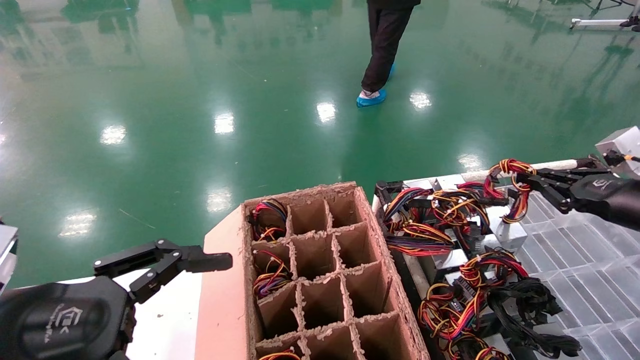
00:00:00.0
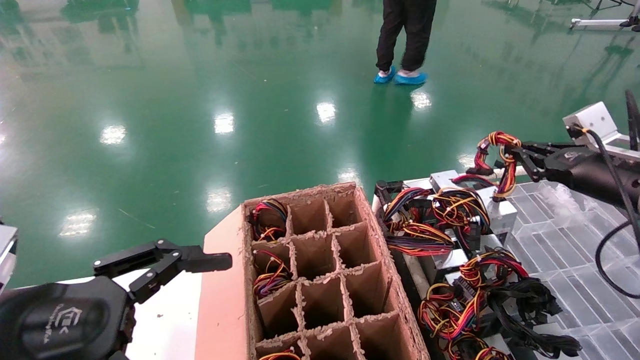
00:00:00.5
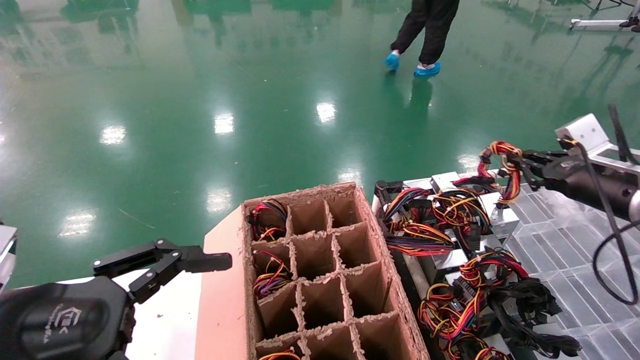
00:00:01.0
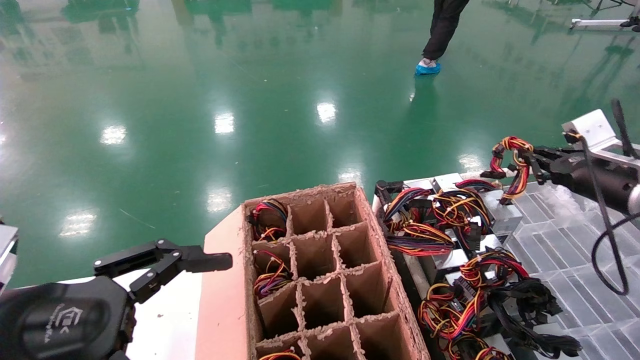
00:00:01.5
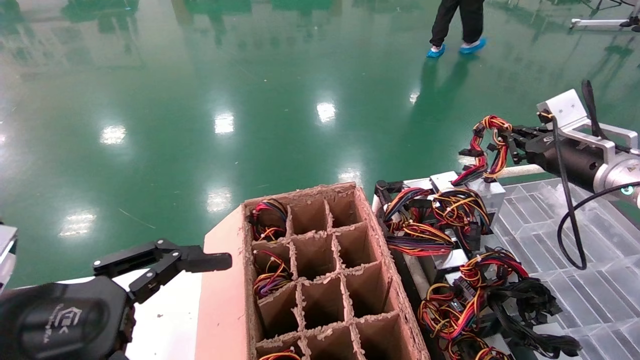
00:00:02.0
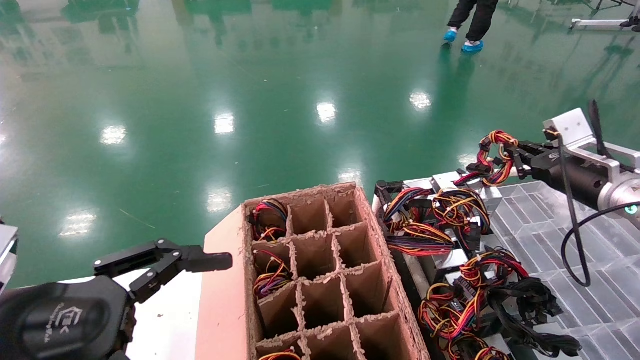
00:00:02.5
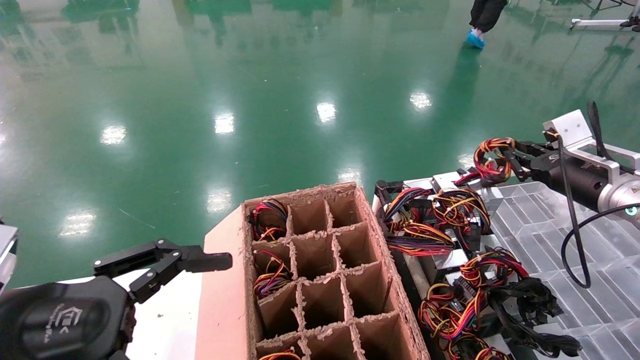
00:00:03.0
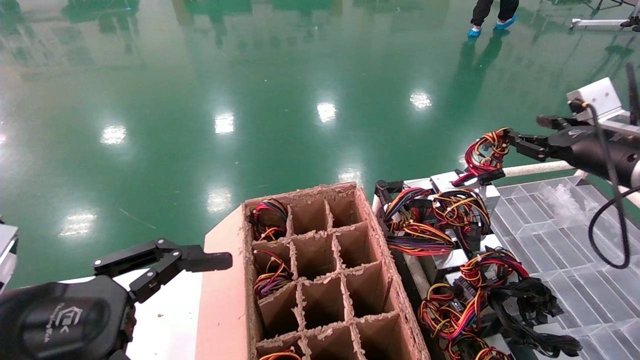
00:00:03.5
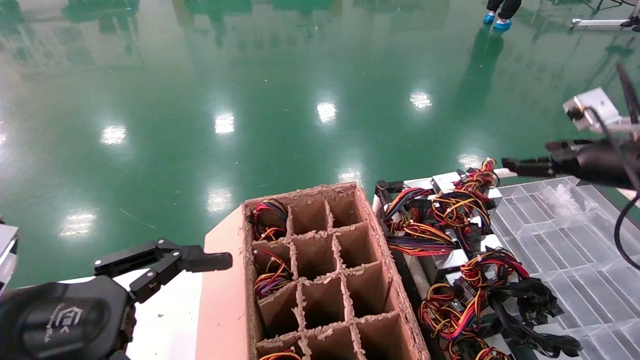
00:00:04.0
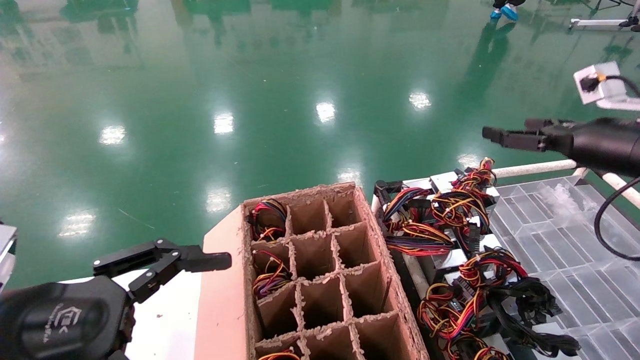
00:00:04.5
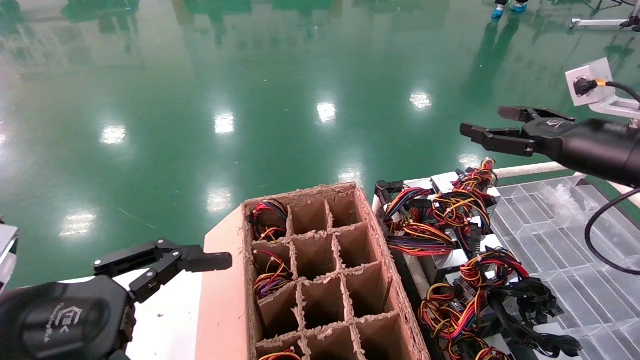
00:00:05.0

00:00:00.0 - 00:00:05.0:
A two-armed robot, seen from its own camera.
Step, 00:00:00.0 - 00:00:03.0: Place the power supply on the operating table.
00:00:00.0 - 00:00:02.5: The right gripper heads forward, covering approximately 10 cm.
00:00:02.5 - 00:00:05.0: The right gripper moves backward and upward, roughly 10 cm, and opens its fingers.

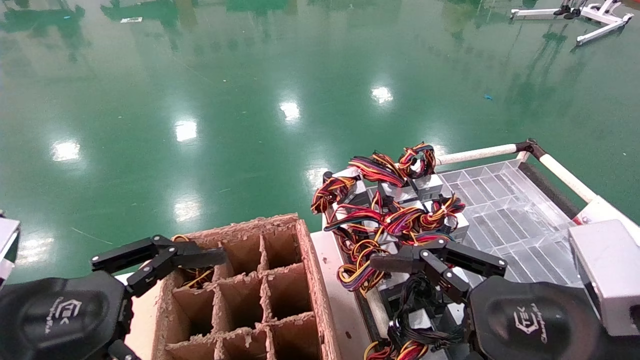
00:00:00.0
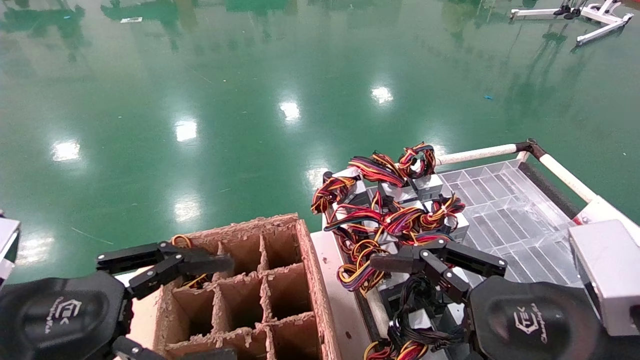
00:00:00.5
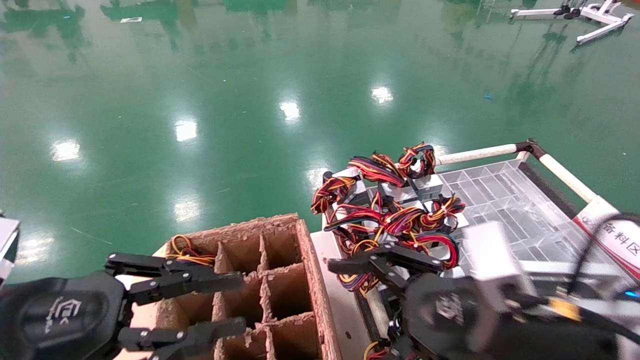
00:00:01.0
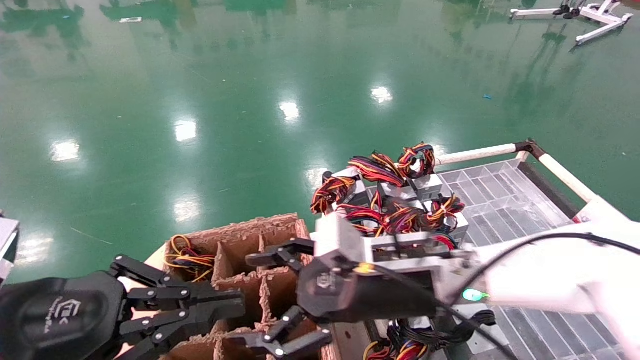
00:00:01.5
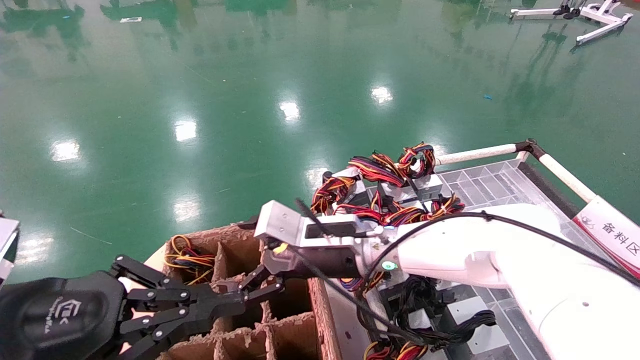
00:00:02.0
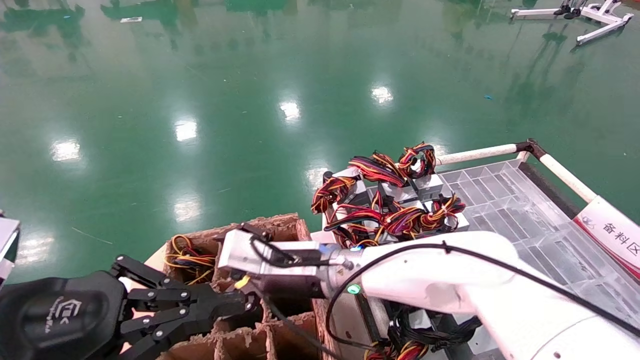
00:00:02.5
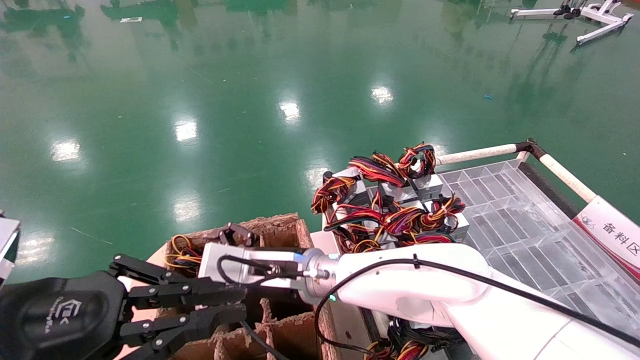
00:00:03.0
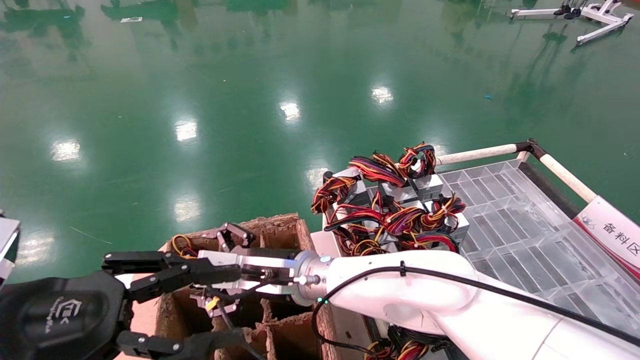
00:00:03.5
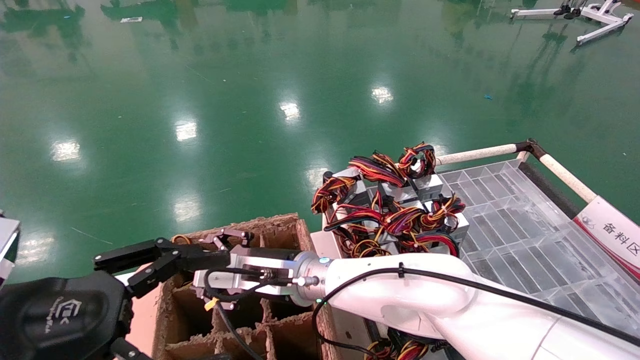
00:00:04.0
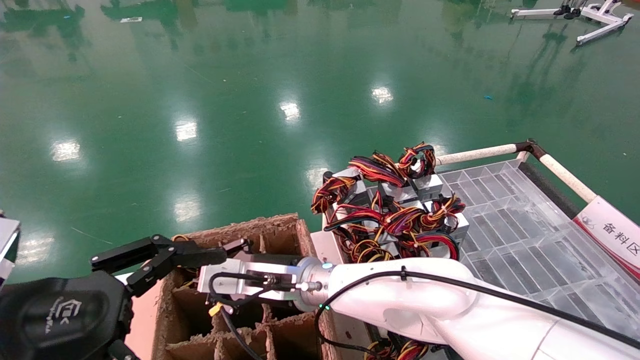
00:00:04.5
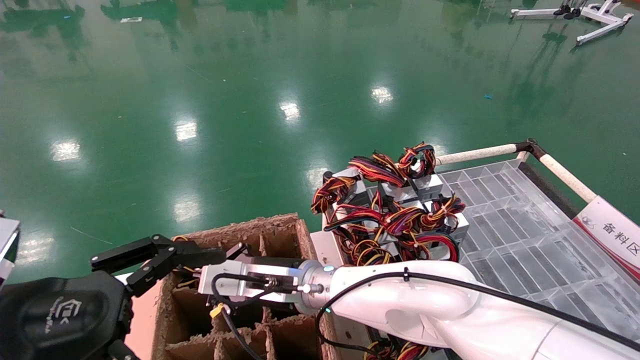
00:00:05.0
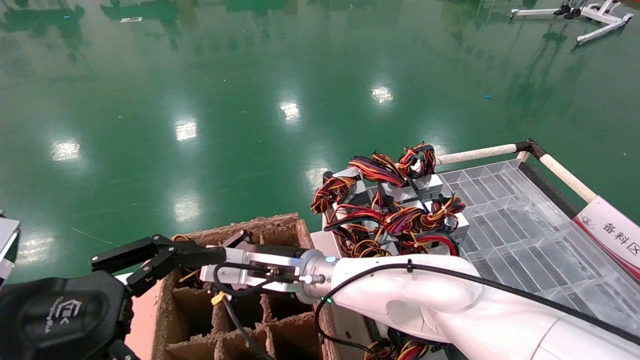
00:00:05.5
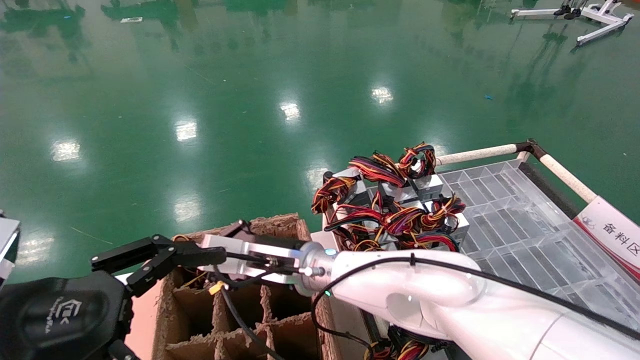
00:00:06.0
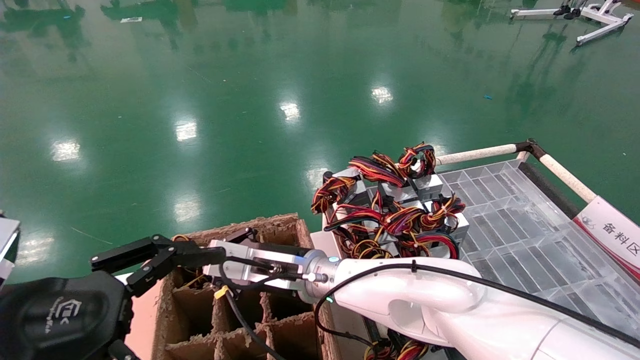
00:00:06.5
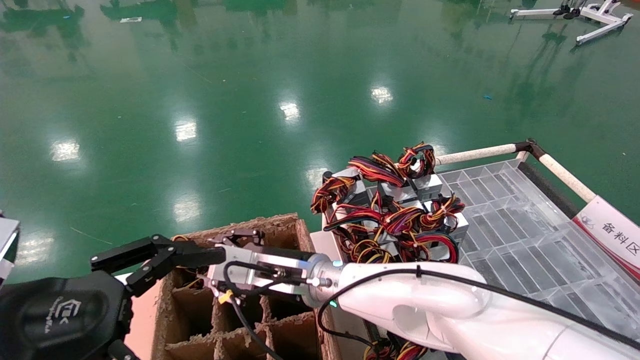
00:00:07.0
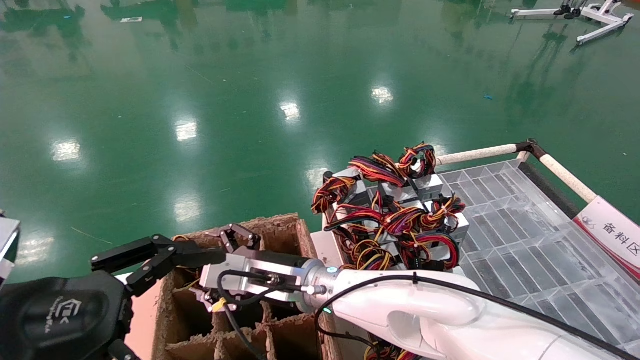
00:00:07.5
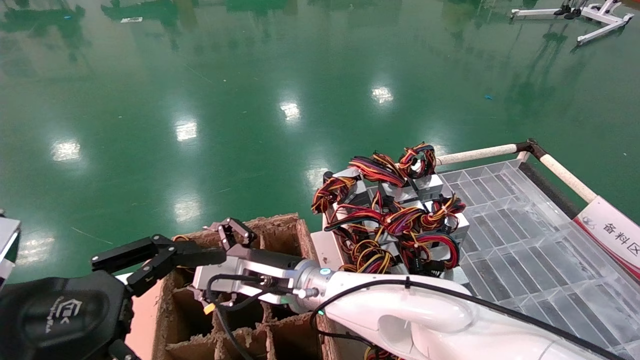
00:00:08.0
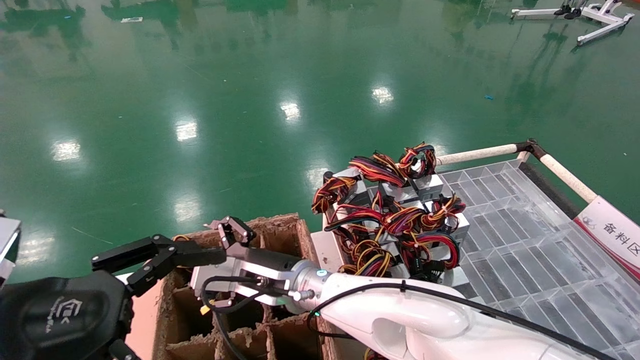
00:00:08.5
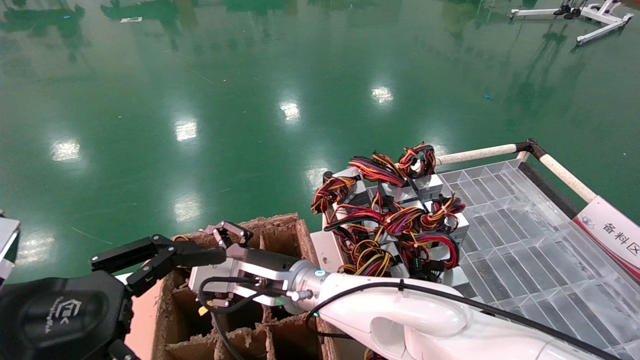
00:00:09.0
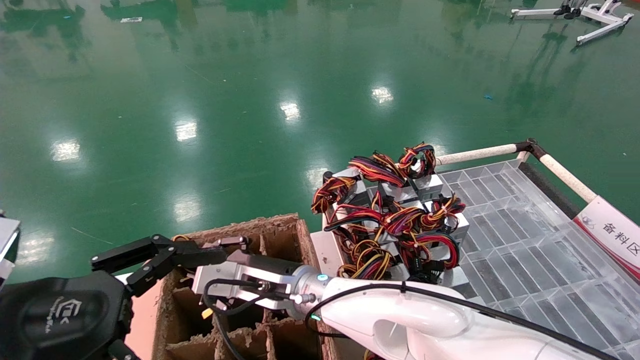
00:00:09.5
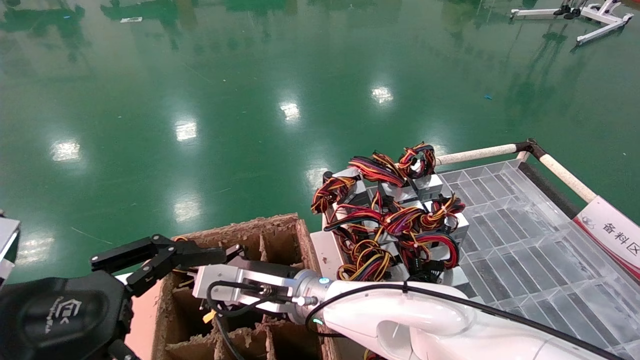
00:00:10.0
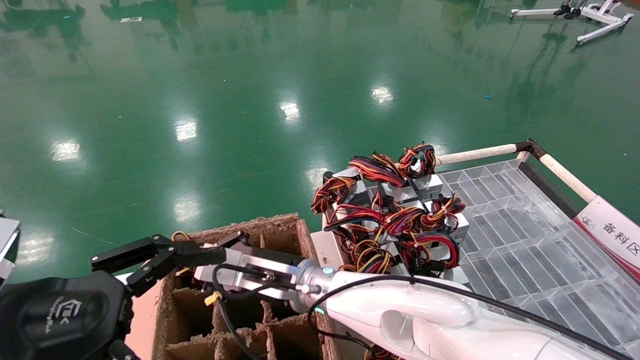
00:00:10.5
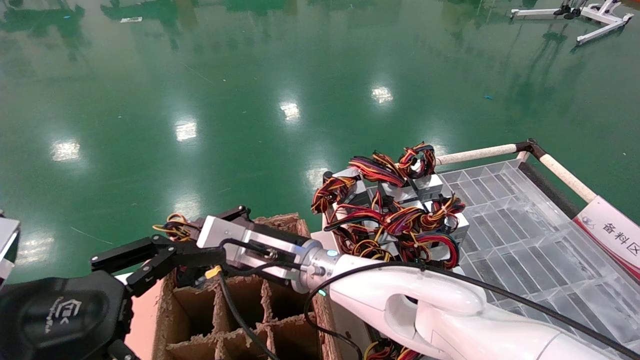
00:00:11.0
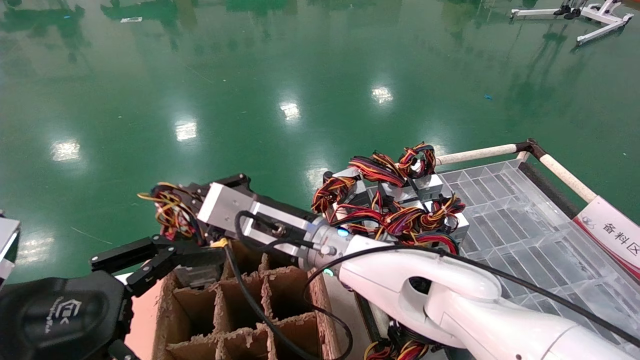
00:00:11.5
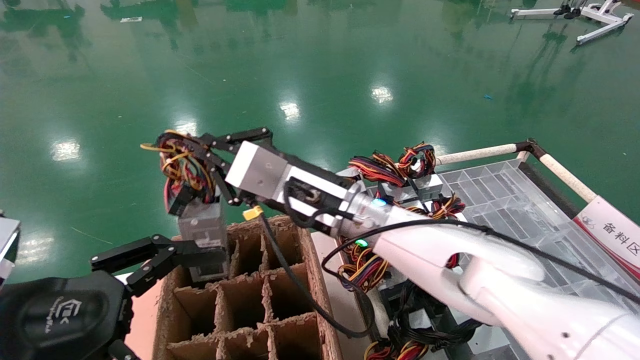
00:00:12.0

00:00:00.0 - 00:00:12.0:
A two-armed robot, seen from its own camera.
Step, 00:00:01.0 - 00:00:10.0: Grab and lift the power supply from the large box.
00:00:00.0 - 00:00:02.0: The left gripper closes up. Meanwhile the right gripper shifts roughly 30 cm forward and to the left.
00:00:02.0 - 00:00:04.0: The right gripper is displaced to the left by roughly 10 cm, while the left gripper opens.
00:00:04.0 - 00:00:06.0: The right gripper closes up.
00:00:06.0 - 00:00:08.0: The right gripper opens its fingers.
00:00:08.0 - 00:00:10.0: The right gripper closes.
00:00:10.0 - 00:00:12.0: The right gripper travels upward and to the right by about 15 cm.

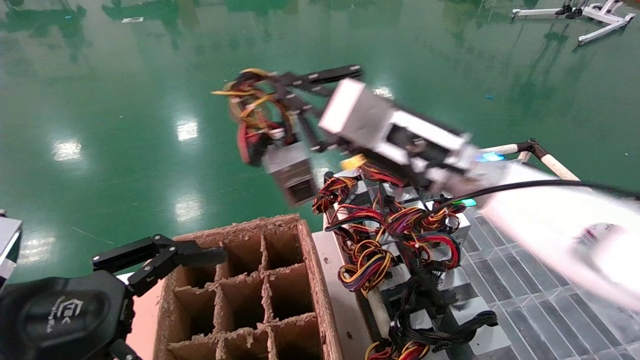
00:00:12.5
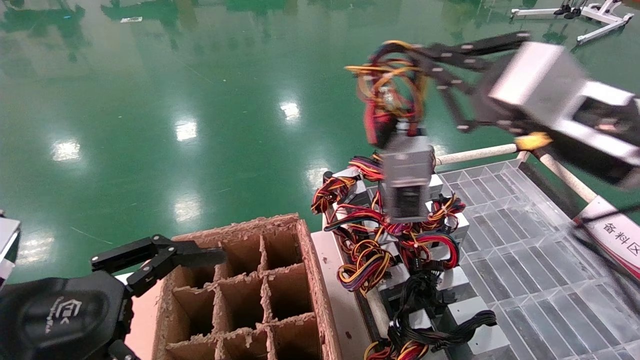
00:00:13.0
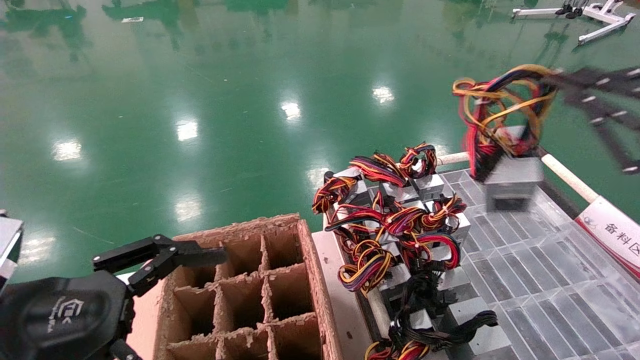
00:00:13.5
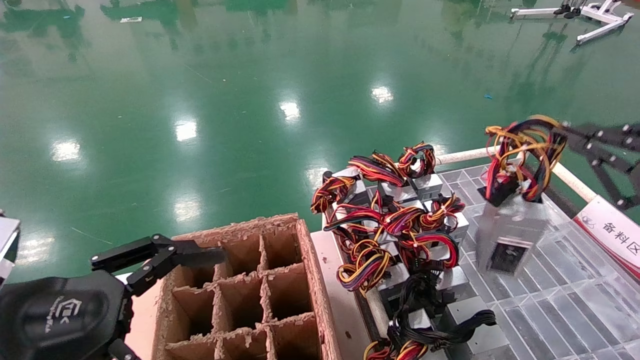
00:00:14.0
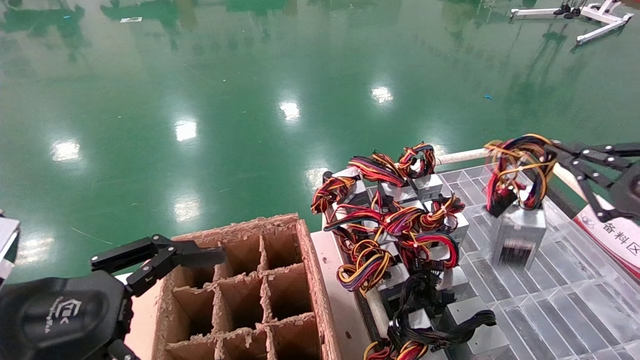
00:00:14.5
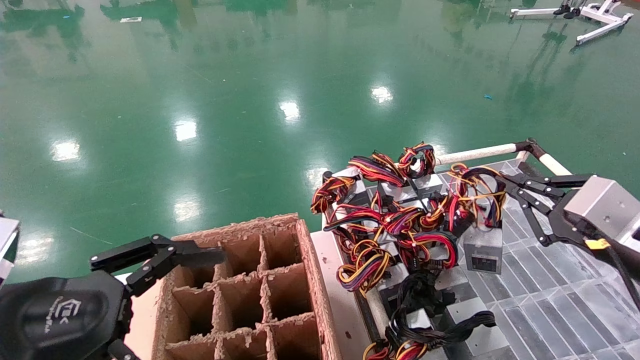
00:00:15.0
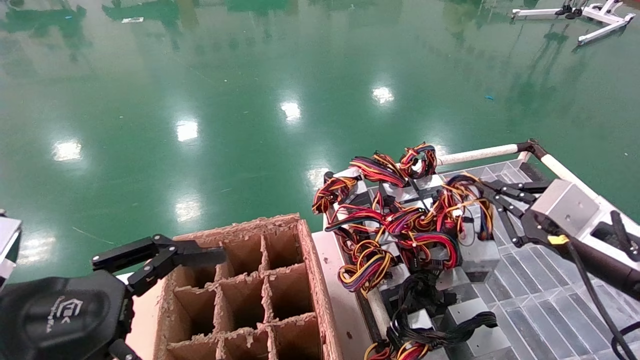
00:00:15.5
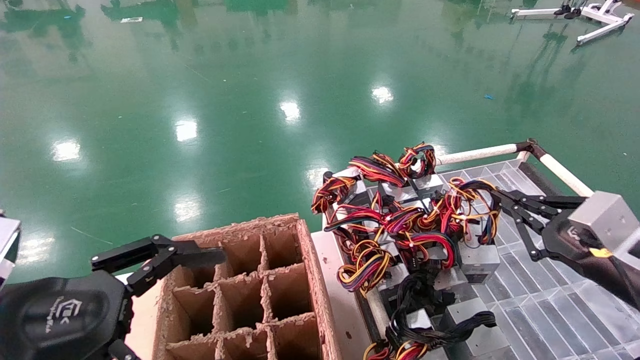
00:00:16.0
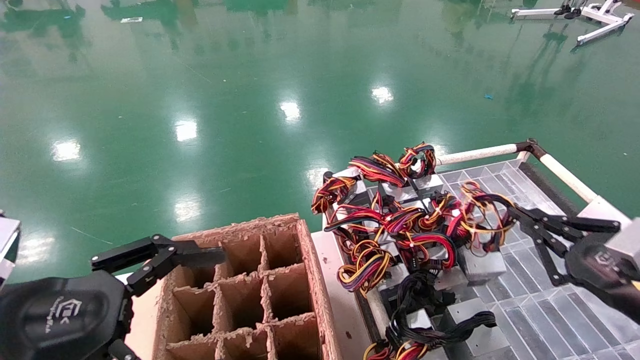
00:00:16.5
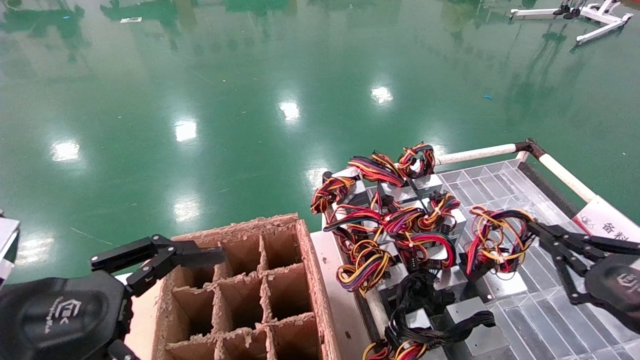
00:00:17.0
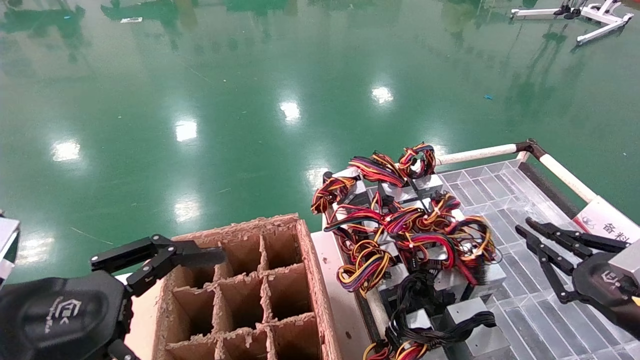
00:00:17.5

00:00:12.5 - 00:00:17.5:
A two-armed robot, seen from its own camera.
Step, 00:00:12.5 - 00:00:17.5: Place the power supply on the operating table.
00:00:12.5 - 00:00:15.0: The right gripper moves to the right and downward, some 25 cm.
00:00:15.0 - 00:00:17.5: The right gripper travels downward by approximately 10 cm.
